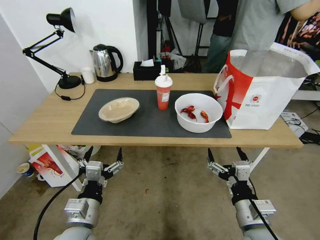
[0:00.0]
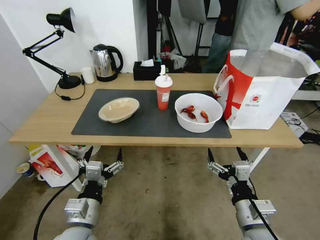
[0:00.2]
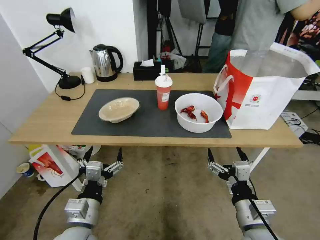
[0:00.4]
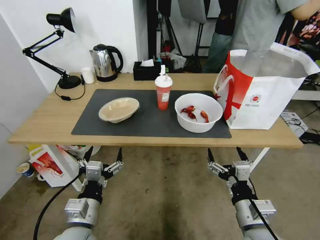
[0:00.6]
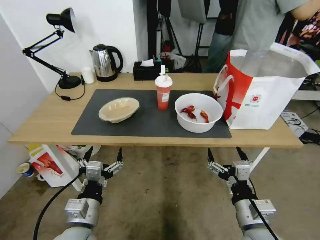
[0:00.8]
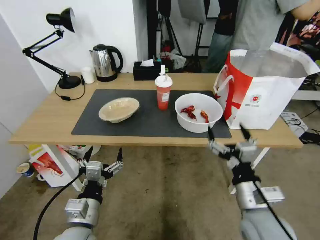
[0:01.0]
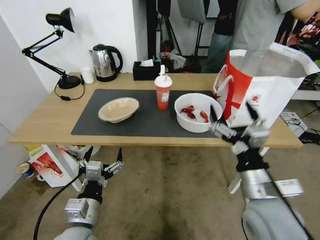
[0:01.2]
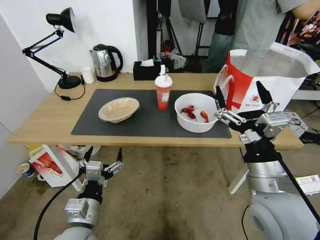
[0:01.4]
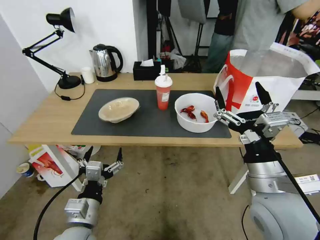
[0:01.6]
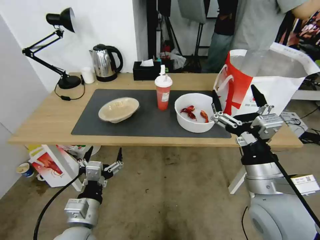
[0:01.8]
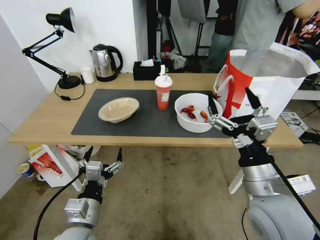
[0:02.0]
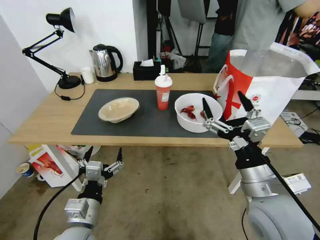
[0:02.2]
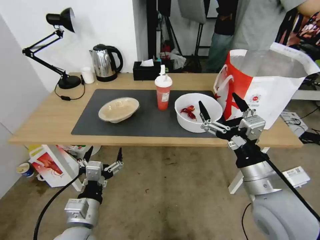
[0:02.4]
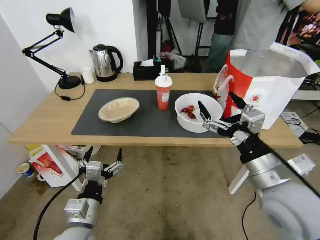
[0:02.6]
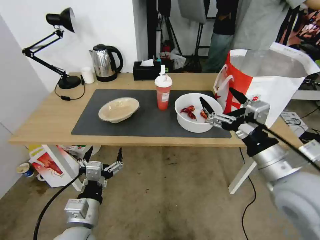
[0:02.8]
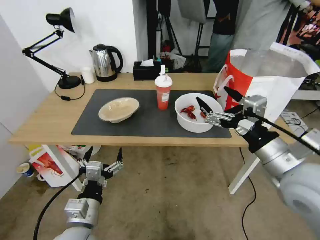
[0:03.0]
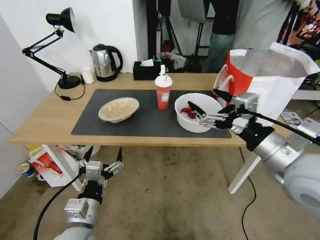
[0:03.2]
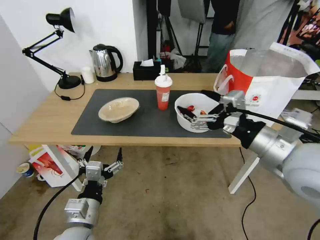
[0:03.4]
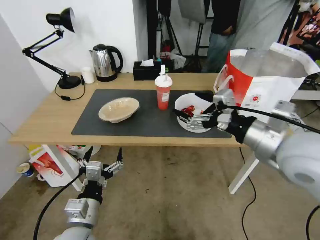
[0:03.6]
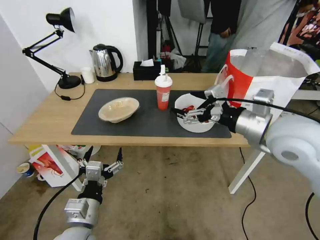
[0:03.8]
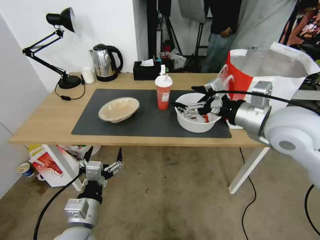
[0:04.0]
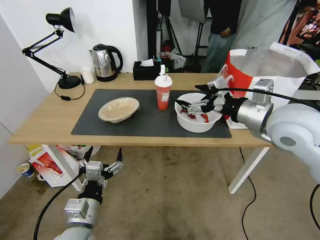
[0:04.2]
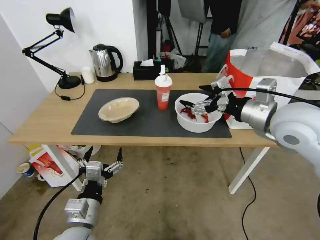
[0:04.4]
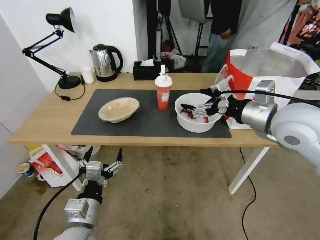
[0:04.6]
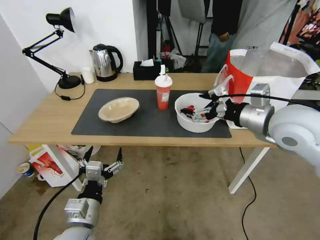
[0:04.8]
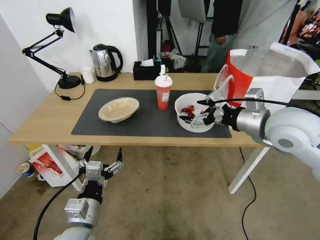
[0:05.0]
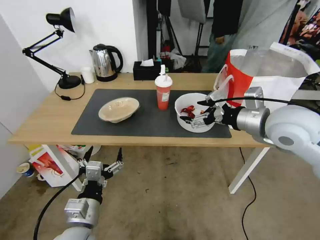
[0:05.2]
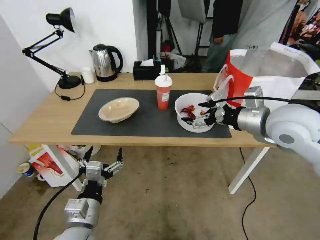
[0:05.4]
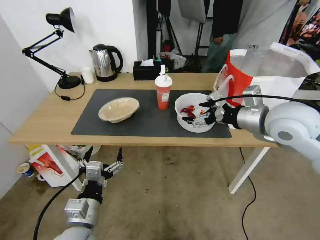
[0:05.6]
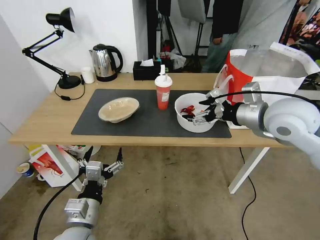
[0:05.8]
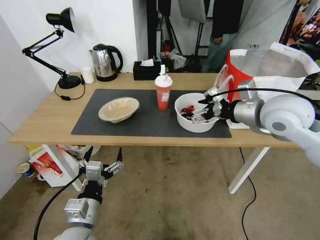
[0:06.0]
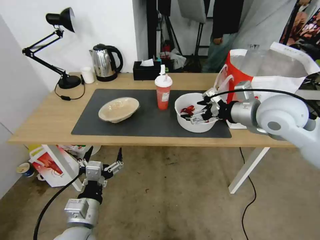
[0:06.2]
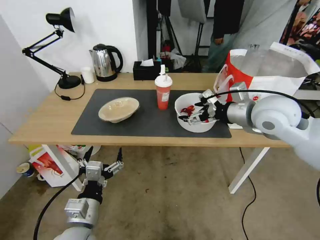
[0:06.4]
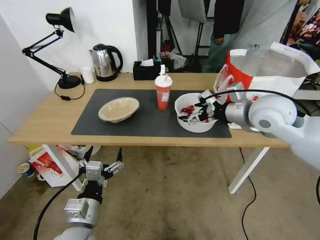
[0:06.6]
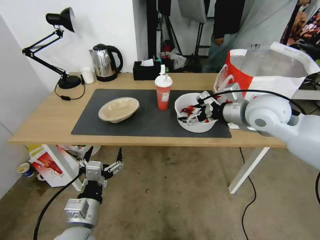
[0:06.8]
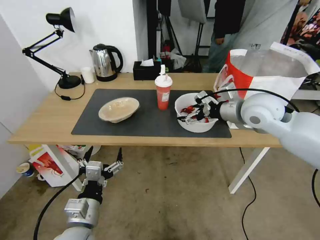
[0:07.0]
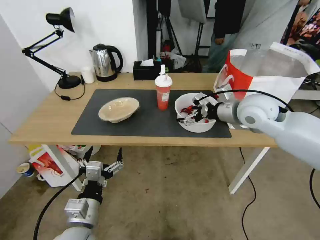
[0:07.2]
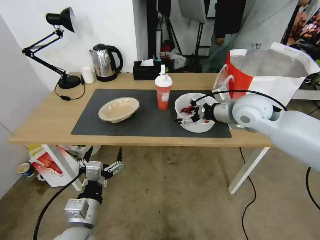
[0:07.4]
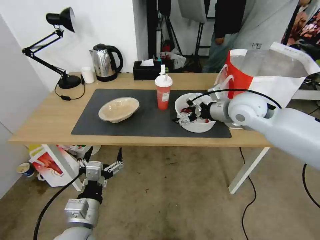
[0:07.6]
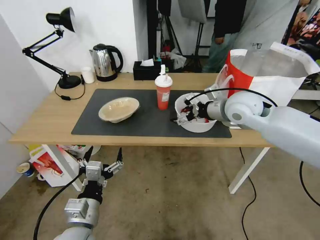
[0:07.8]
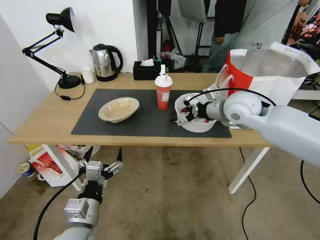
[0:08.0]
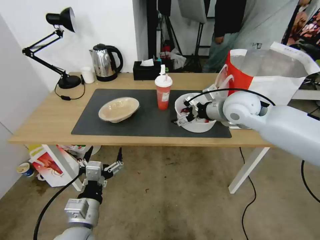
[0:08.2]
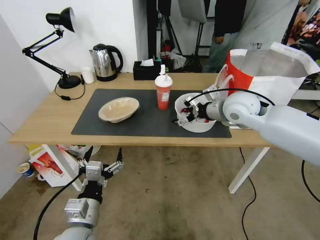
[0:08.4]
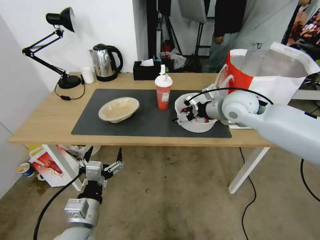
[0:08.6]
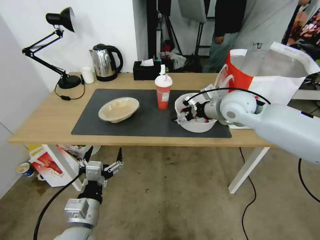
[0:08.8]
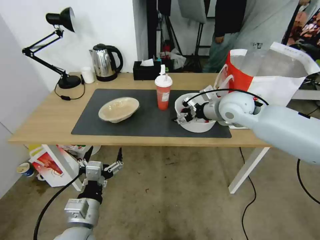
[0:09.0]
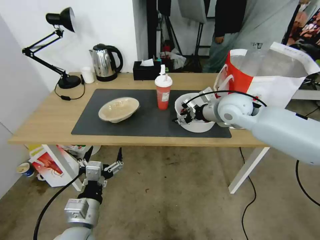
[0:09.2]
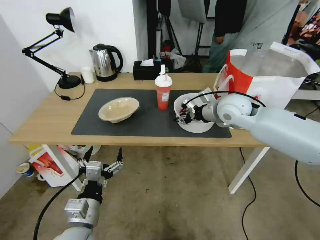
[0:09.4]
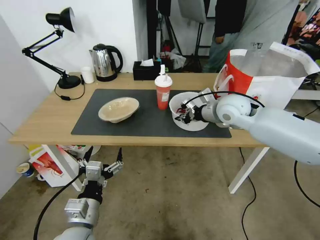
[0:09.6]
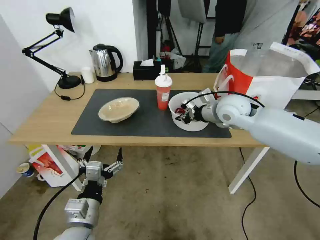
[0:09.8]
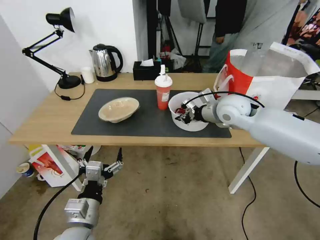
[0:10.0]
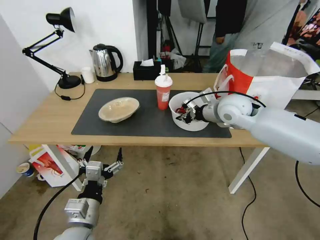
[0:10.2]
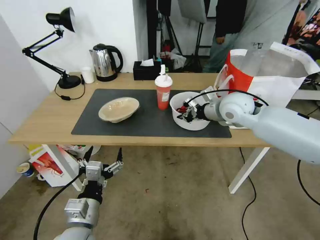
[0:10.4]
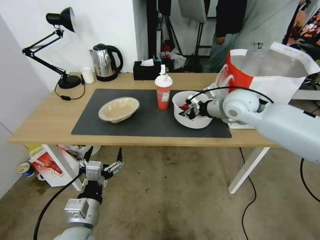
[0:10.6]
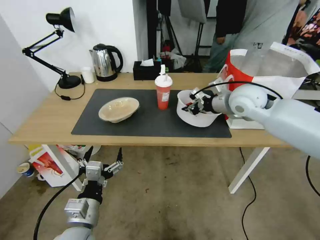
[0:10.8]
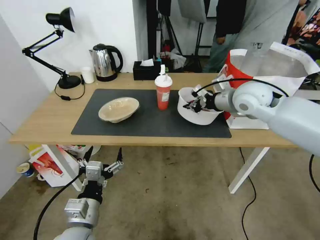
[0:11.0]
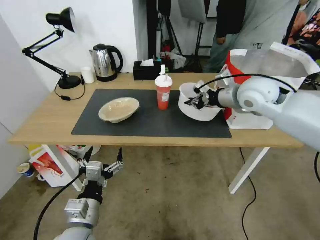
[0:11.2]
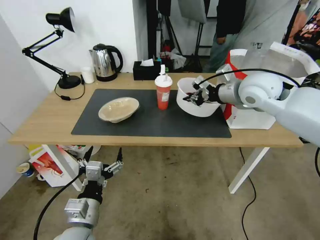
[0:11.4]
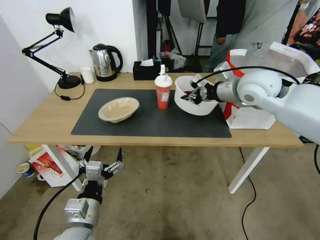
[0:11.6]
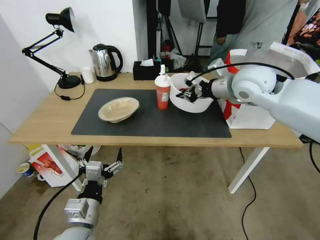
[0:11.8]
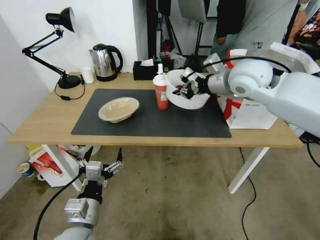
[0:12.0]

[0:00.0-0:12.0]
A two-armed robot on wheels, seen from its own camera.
Task of the whole recording: Pick up the trash from the table and place it into the takeout bag.
0:01.6 to 0:03.0: The right gripper is displaced upward by roughly 5 cm.
0:03.0 to 0:04.4: The right gripper goes roughly 10 cm forward and upward.
0:04.4 to 0:06.0: The grippers move only a little.
0:06.0 to 0:07.6: The right gripper is displaced forward by roughly 5 cm.
0:07.6 to 0:09.0: The grippers stay close to where they were, moving slightly.
0:09.0 to 0:10.4: The right gripper closes its fingers.
0:10.4 to 0:12.0: The right gripper shifts roughly 10 cm upward.

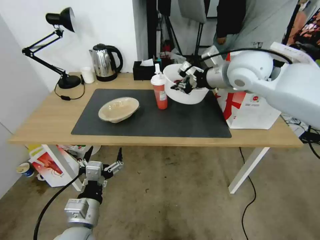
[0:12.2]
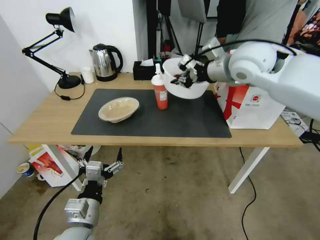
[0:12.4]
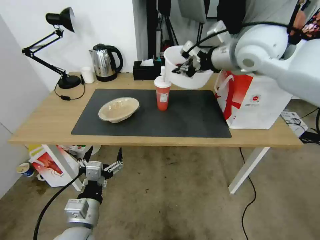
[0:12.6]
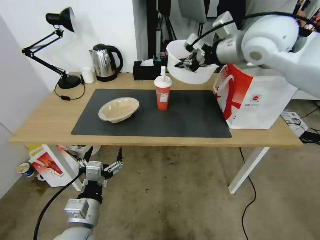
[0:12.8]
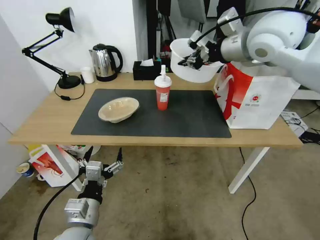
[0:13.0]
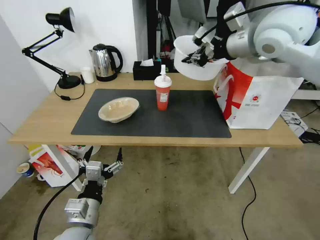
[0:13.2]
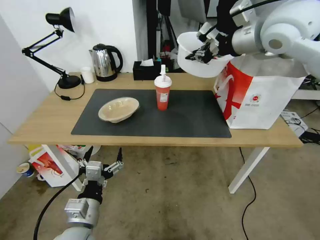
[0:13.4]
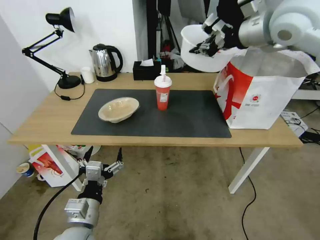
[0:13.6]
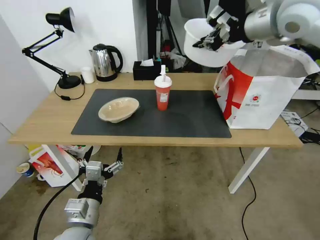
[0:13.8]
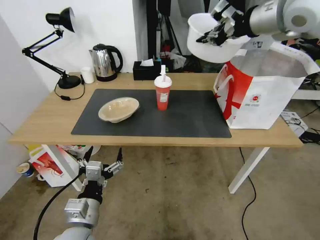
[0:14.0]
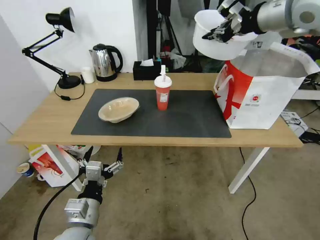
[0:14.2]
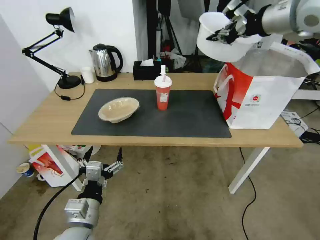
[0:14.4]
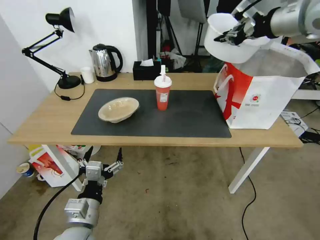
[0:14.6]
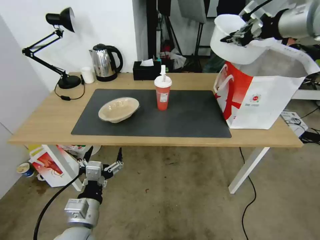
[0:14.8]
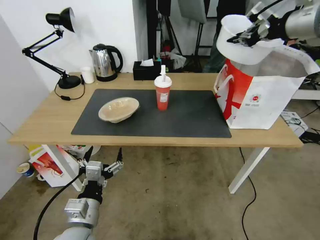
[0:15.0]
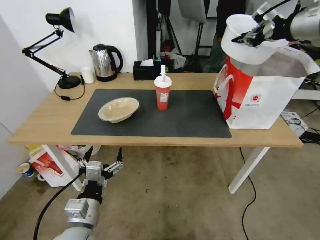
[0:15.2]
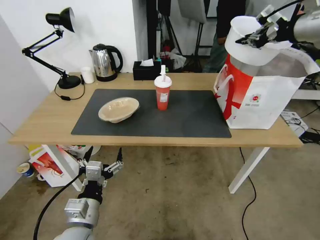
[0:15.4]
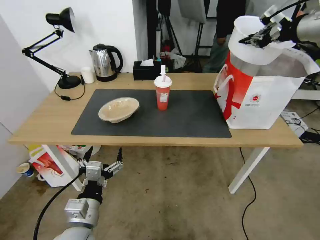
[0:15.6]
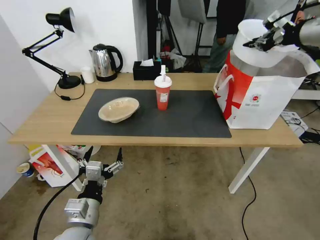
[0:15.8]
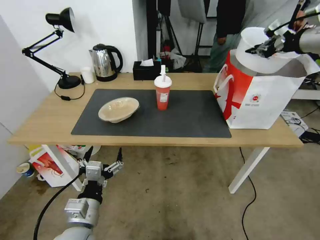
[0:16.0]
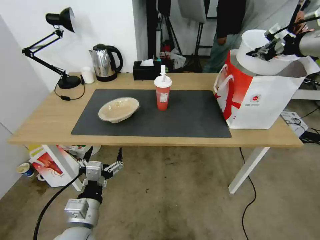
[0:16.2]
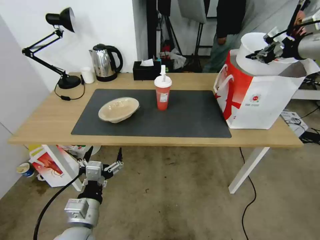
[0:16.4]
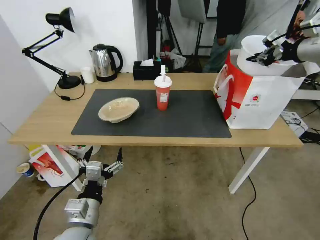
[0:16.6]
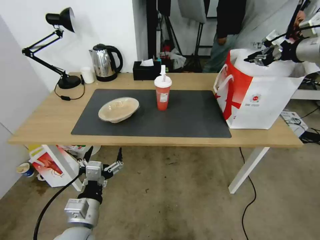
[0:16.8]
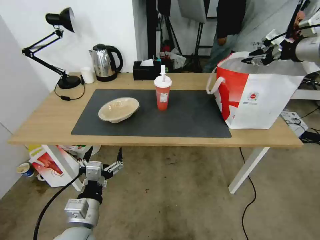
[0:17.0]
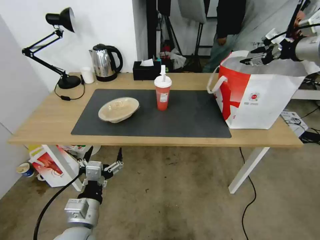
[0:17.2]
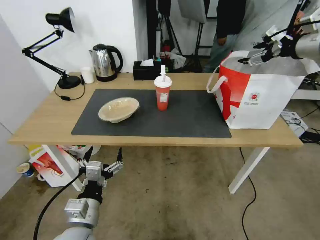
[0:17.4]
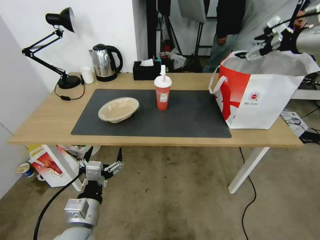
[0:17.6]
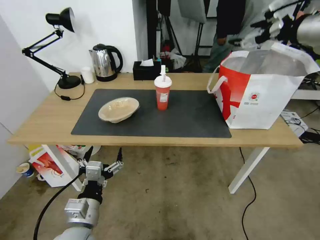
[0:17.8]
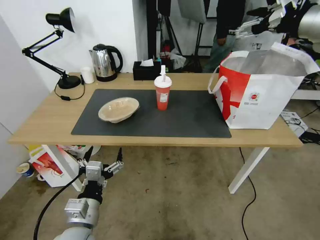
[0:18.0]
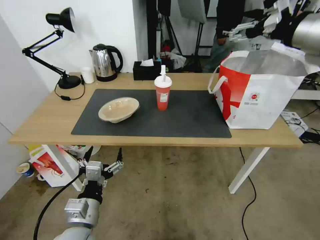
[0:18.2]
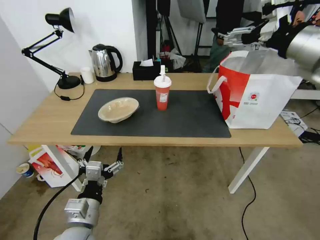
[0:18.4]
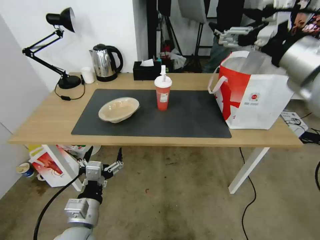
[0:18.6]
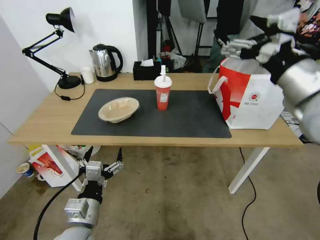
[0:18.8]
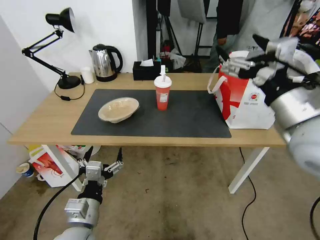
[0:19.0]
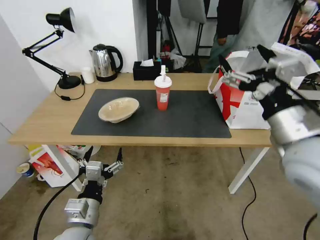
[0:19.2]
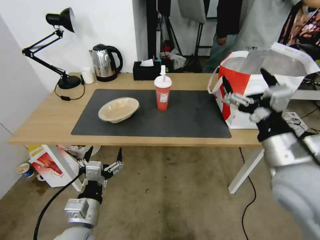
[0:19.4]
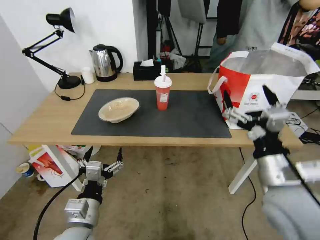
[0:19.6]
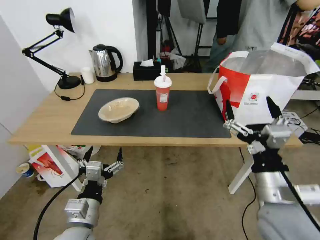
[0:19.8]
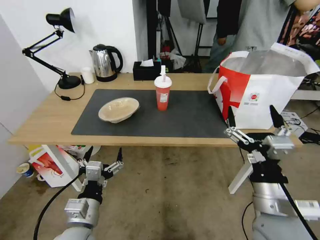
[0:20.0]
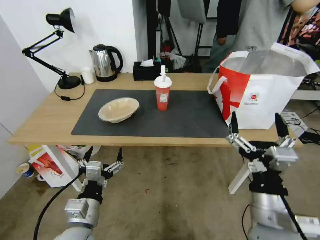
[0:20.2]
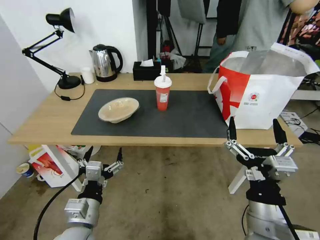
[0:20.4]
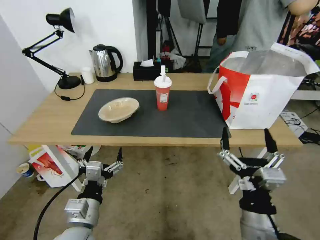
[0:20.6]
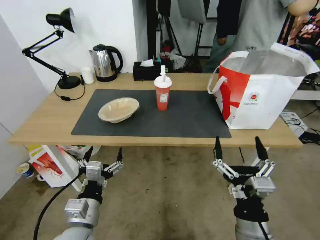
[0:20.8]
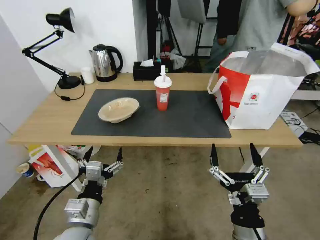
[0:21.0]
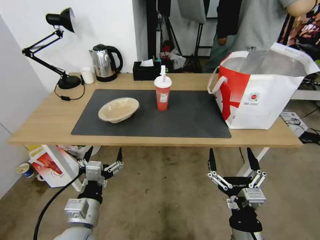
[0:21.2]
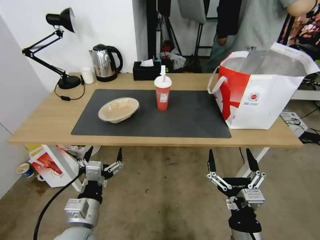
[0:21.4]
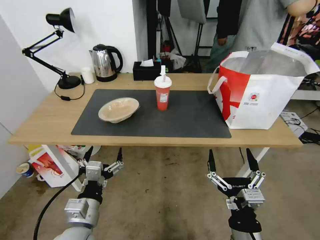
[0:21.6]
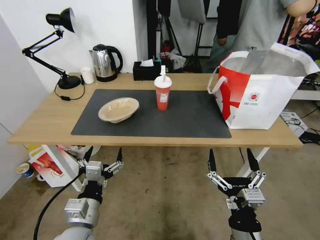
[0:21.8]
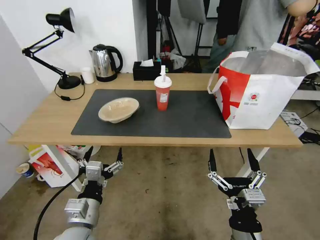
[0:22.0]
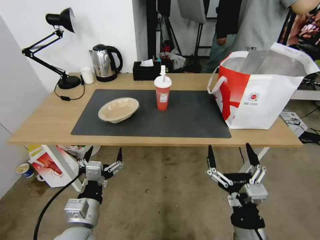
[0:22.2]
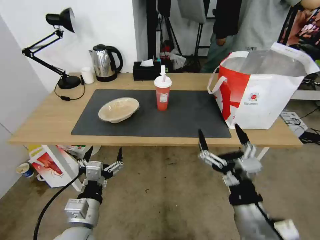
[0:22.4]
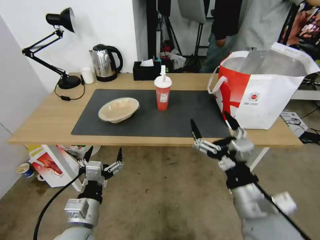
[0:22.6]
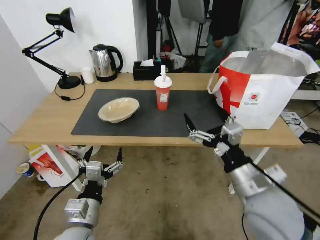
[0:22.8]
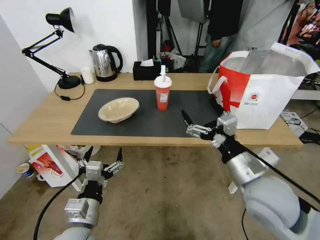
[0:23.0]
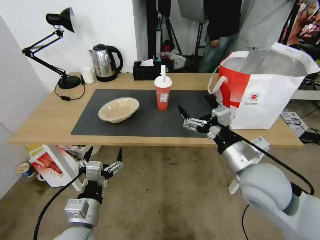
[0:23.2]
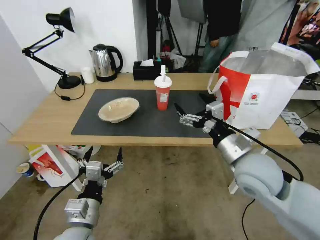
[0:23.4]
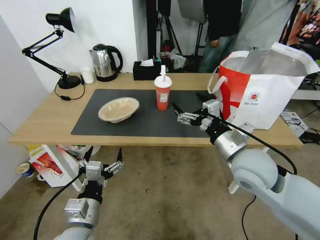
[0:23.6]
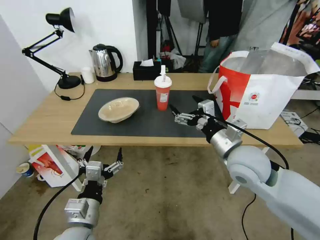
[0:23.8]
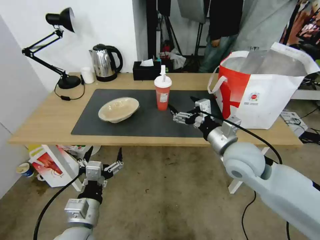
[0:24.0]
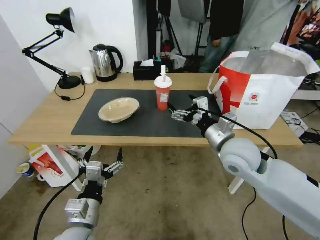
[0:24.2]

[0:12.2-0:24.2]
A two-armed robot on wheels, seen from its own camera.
Task of the whole recording: Pick up the trash from the table and place it into the takeout bag.
0:12.2 to 0:13.8: The right gripper goes about 15 cm upward and to the right.
0:13.8 to 0:15.2: The right gripper travels to the right by roughly 10 cm.
0:15.2 to 0:16.6: The right gripper shifts some 10 cm to the right and downward.
0:16.6 to 0:18.2: The right gripper moves to the left and backward, some 15 cm, and opens.
0:18.2 to 0:19.8: The right gripper shifts approximately 35 cm downward and backward.
0:19.8 to 0:21.2: The right gripper heads downward and backward, covering about 15 cm.
0:21.2 to 0:22.6: The right gripper shifts about 10 cm upward and forward.
0:22.6 to 0:24.2: The right gripper goes approximately 20 cm forward.
